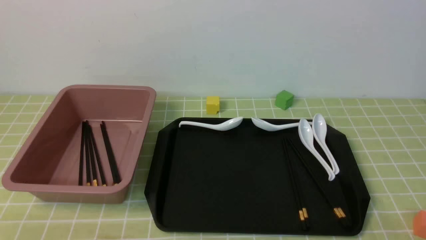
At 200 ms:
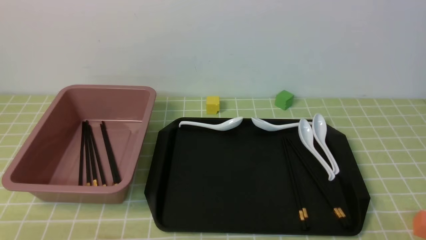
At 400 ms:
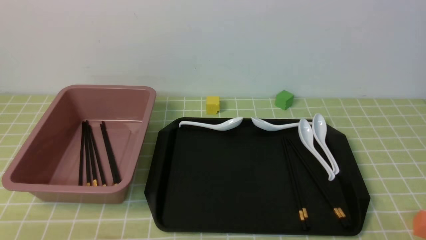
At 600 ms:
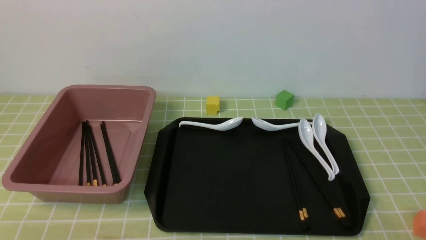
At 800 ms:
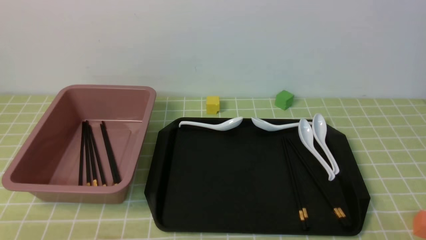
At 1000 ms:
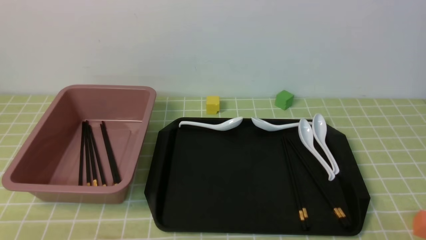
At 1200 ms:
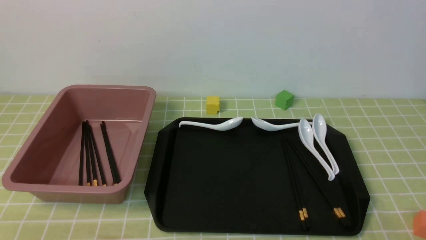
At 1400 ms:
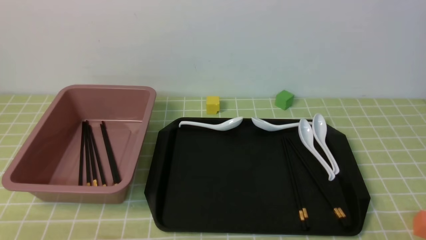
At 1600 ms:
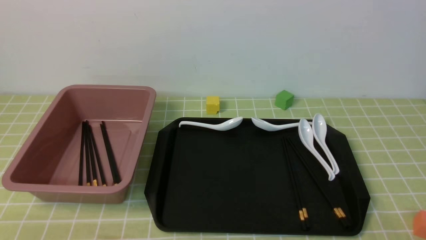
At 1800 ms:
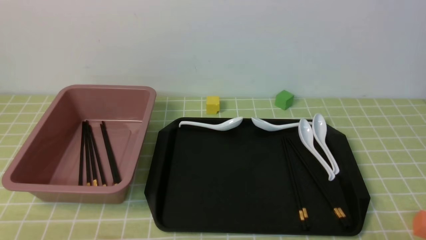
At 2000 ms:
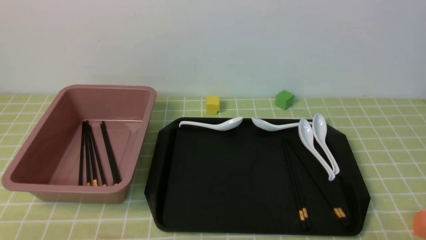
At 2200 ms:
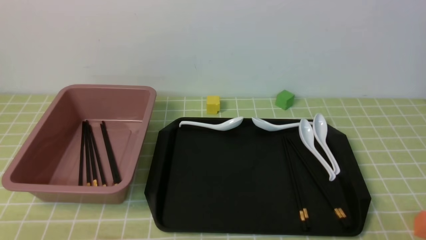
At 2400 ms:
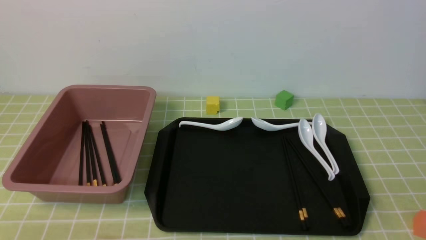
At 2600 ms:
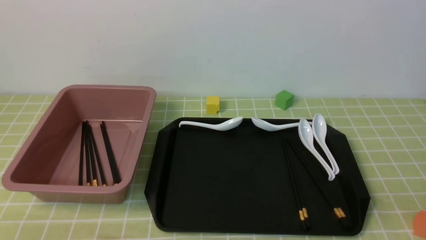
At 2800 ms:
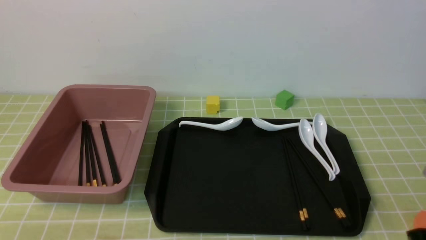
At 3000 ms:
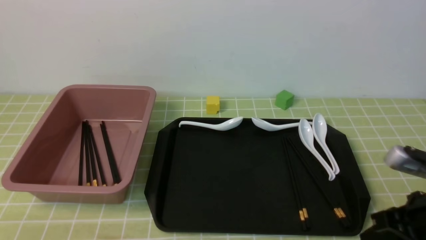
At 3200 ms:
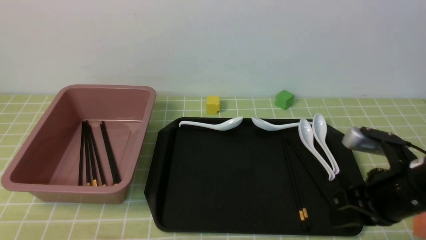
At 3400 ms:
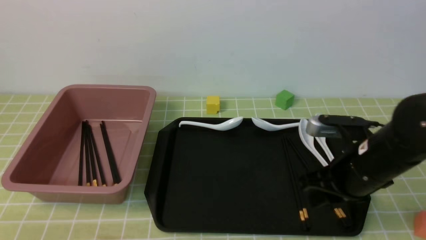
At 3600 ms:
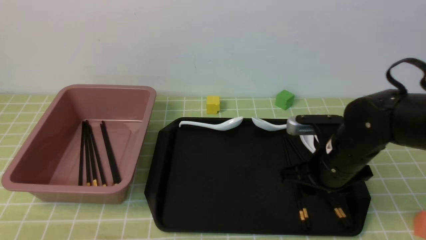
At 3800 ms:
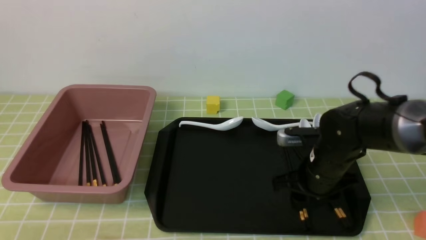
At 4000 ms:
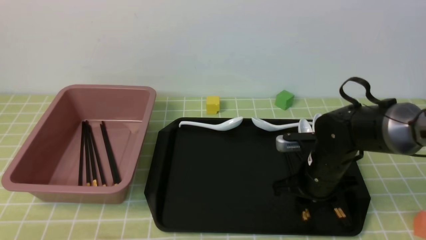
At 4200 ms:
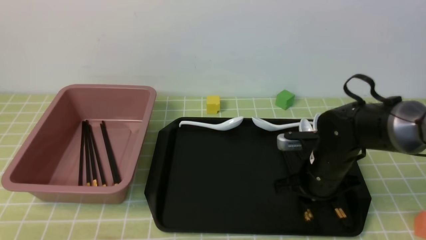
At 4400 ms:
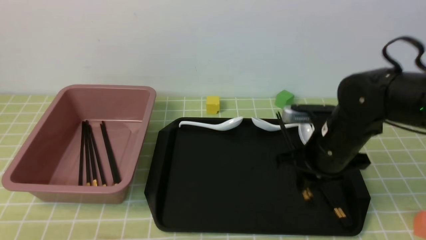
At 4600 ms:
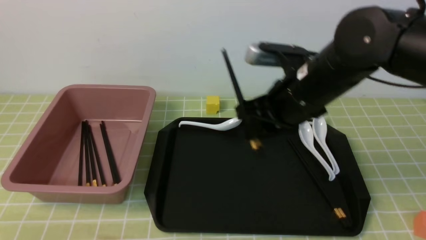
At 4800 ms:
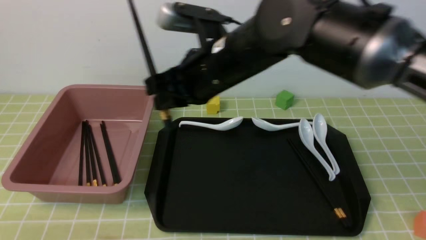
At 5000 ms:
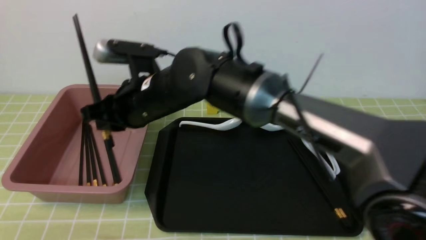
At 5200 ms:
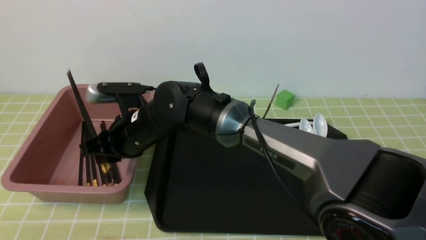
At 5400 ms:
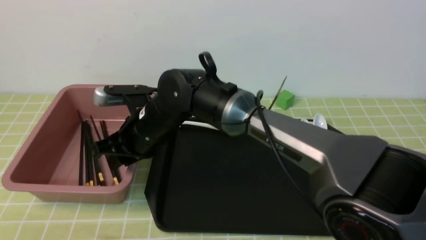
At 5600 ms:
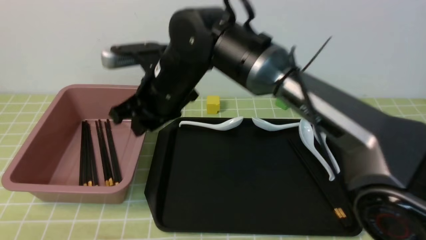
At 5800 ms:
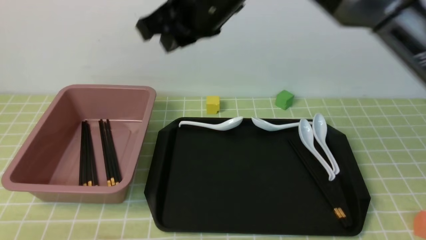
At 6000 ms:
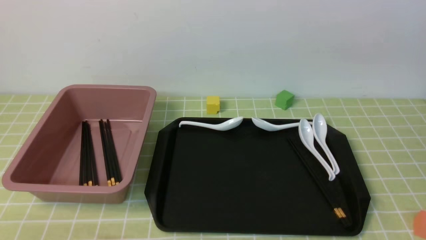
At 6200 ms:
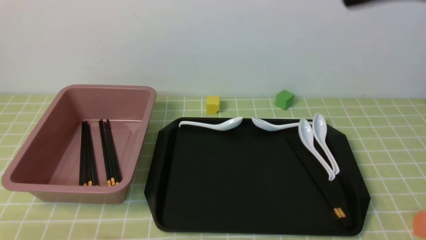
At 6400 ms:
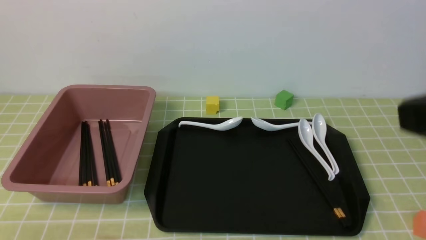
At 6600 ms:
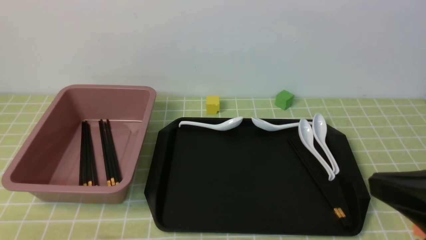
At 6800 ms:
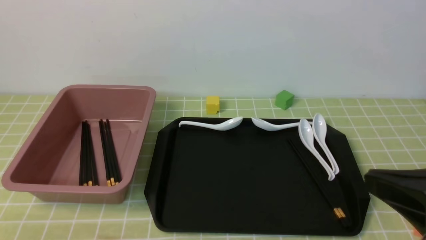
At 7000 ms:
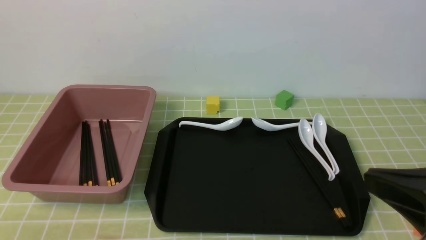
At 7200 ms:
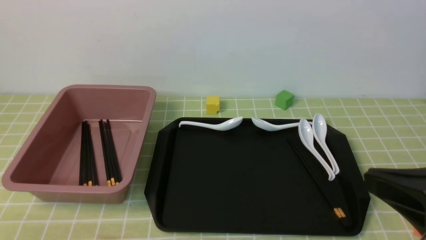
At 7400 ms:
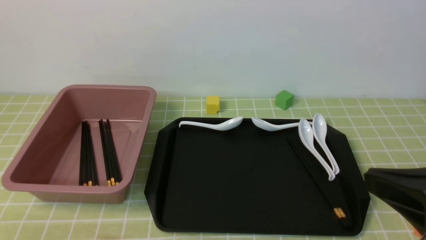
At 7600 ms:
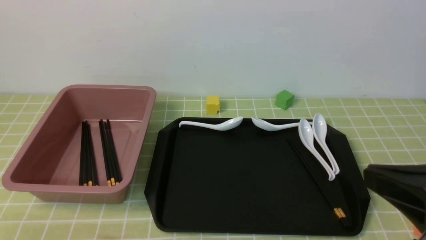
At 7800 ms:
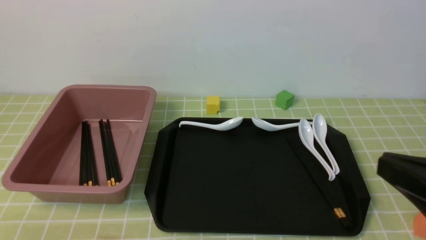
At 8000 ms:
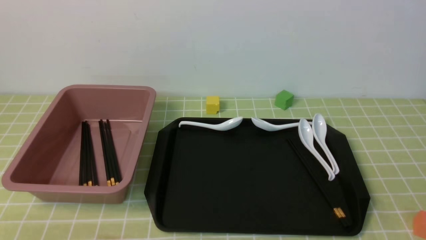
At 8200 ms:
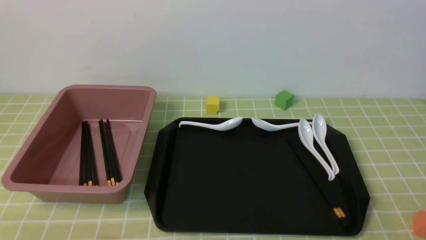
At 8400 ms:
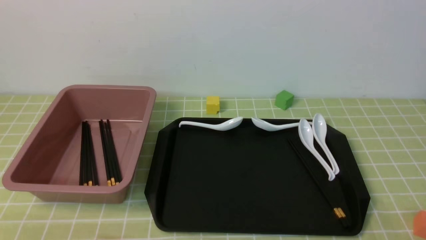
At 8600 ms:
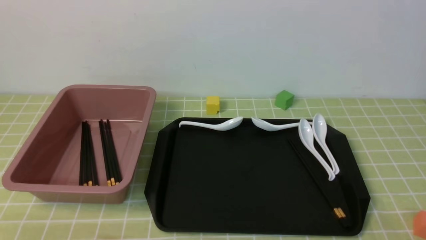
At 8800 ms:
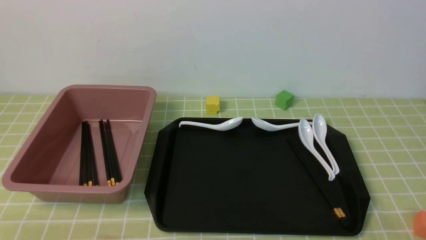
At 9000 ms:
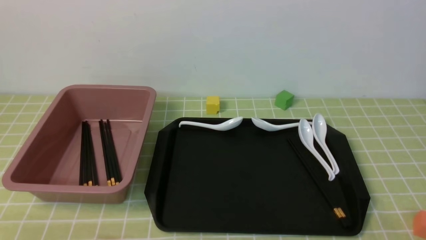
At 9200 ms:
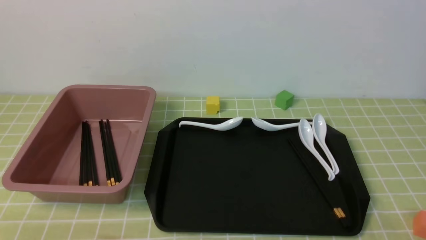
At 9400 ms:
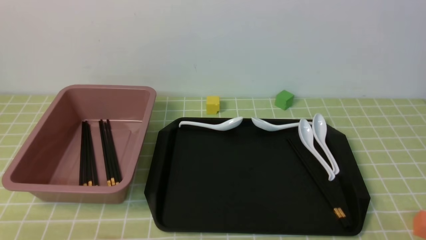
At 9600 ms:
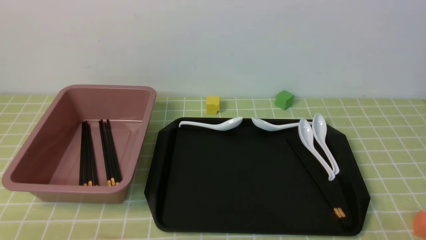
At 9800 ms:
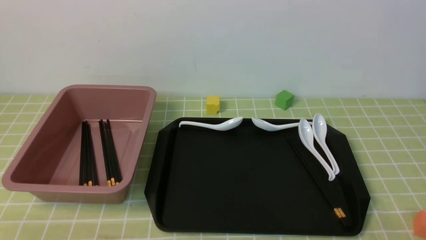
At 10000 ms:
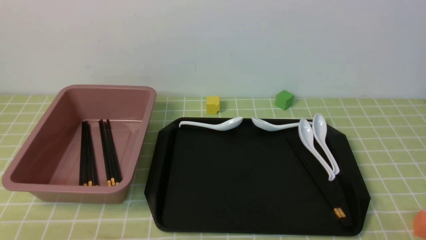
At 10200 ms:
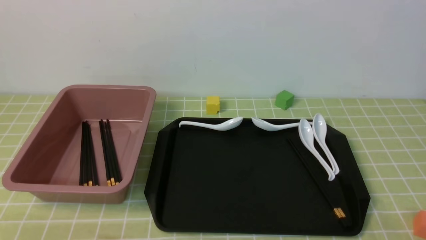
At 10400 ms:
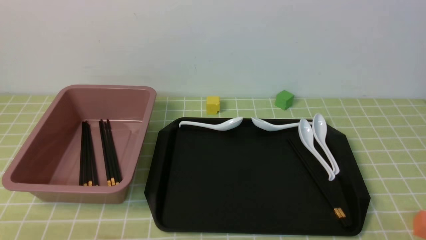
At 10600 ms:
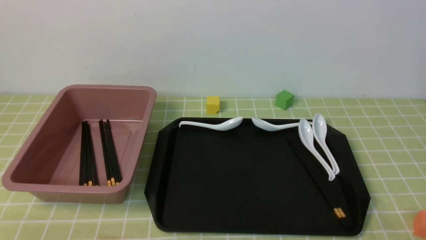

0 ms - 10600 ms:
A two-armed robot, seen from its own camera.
Step, 0 ms - 4400 ms: use the right arm to grab a pair of chopsticks.
Step, 4600 ms - 5400 ms: use the right arm to put the chopsticks into the lunch box.
1600 ms - 3000 ms: The right gripper goes roughly 15 cm forward and upward, and closes.
3000 ms - 4600 ms: The right gripper shifts roughly 20 cm to the left and forward, and opens, then closes once more.
4600 ms - 6000 ms: The right gripper is displaced upward and backward by approximately 25 cm.
6000 ms - 7600 ms: The right gripper shifts approximately 25 cm downward, backward and to the right.
7600 ms - 9000 ms: The right gripper moves downward and to the right, roughly 15 cm.
9000 ms - 10600 ms: The two grippers keep their place.
